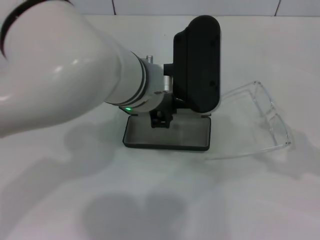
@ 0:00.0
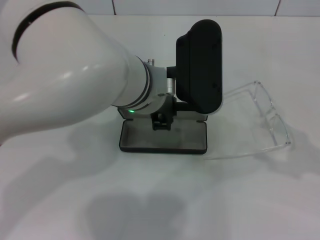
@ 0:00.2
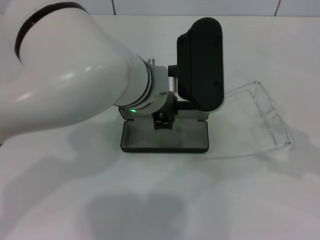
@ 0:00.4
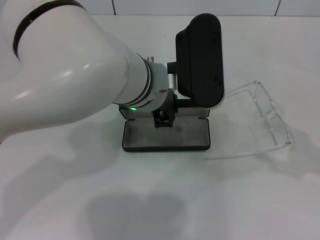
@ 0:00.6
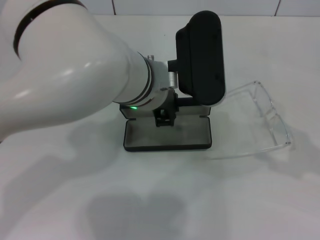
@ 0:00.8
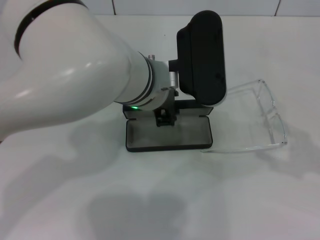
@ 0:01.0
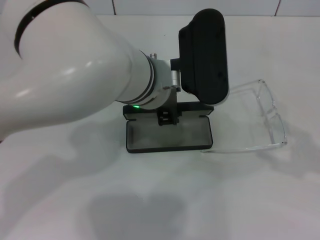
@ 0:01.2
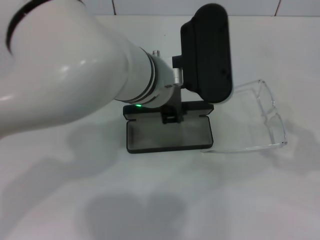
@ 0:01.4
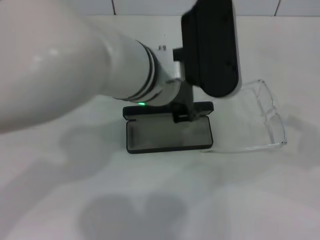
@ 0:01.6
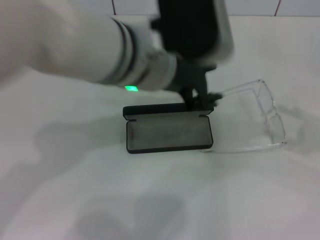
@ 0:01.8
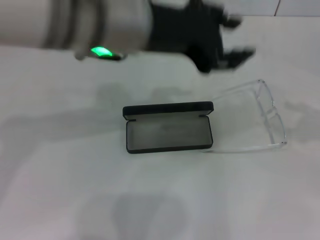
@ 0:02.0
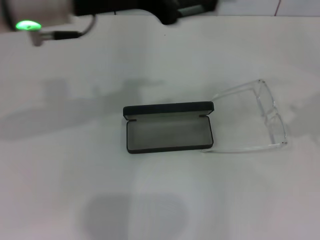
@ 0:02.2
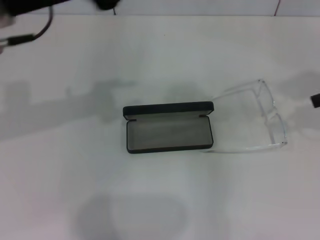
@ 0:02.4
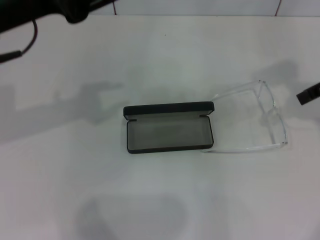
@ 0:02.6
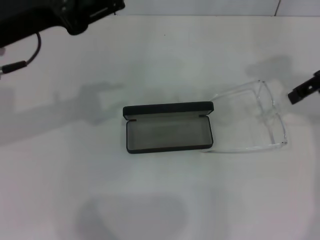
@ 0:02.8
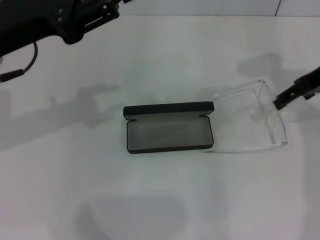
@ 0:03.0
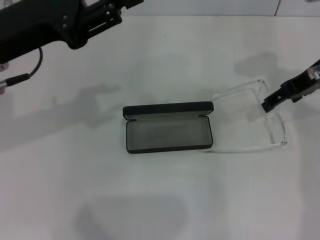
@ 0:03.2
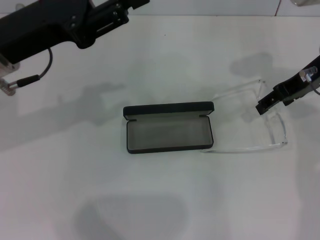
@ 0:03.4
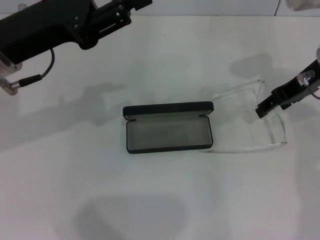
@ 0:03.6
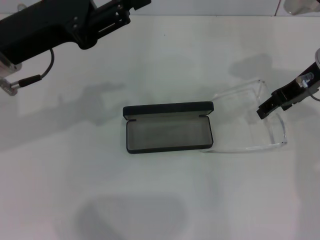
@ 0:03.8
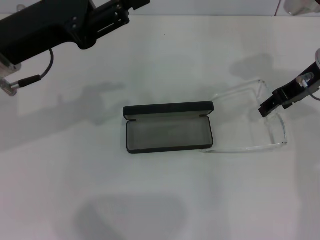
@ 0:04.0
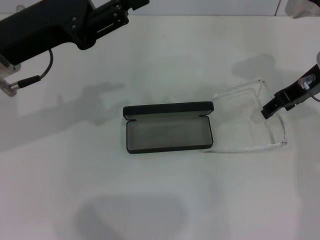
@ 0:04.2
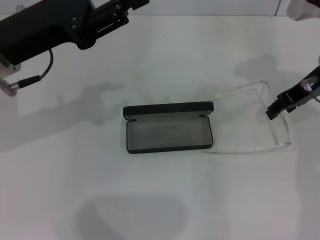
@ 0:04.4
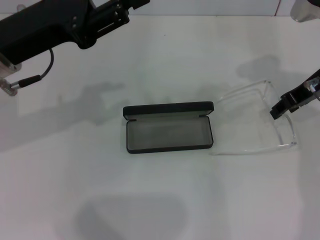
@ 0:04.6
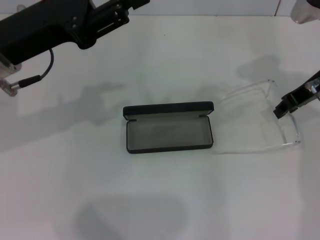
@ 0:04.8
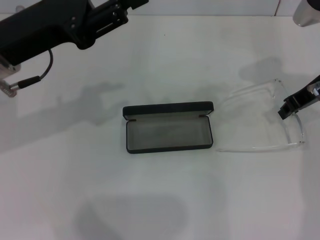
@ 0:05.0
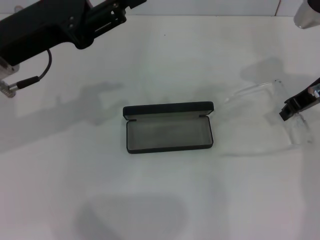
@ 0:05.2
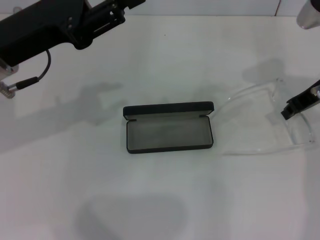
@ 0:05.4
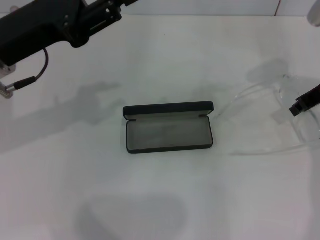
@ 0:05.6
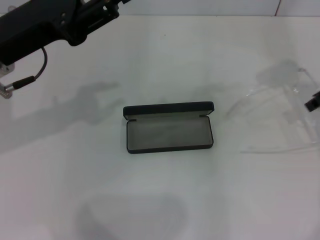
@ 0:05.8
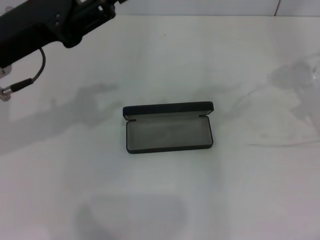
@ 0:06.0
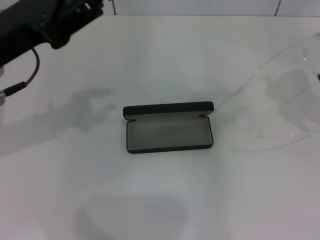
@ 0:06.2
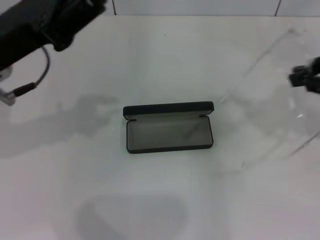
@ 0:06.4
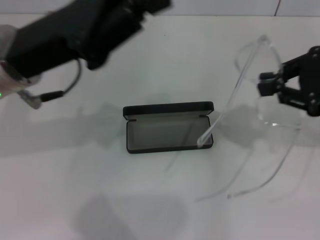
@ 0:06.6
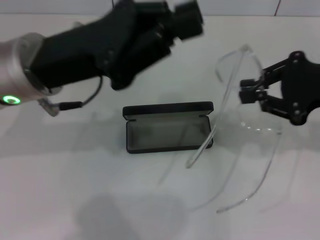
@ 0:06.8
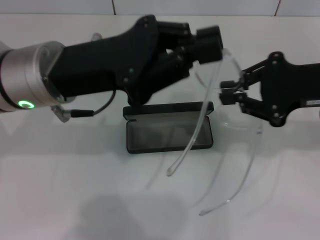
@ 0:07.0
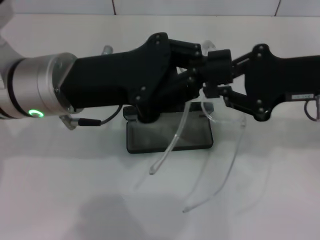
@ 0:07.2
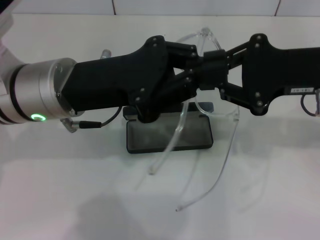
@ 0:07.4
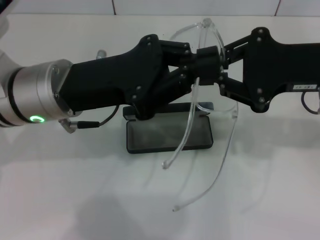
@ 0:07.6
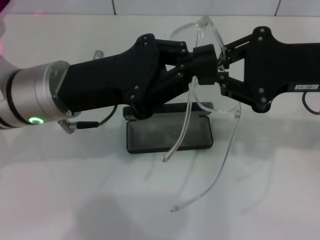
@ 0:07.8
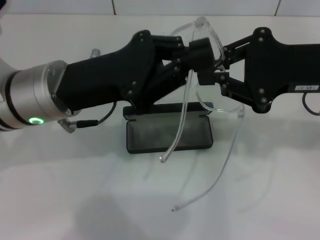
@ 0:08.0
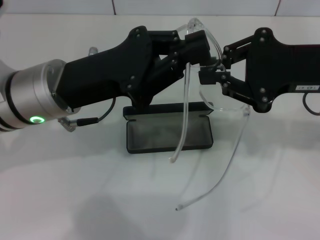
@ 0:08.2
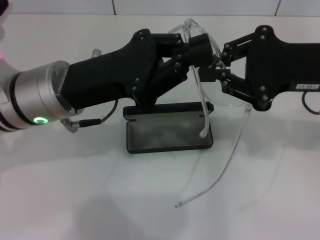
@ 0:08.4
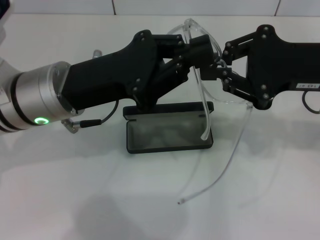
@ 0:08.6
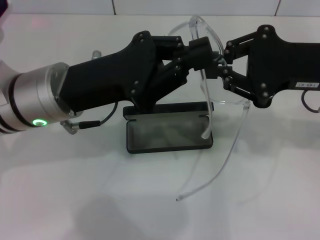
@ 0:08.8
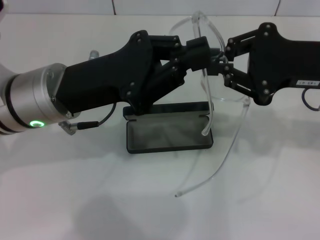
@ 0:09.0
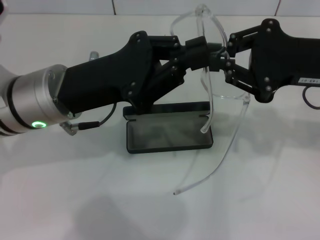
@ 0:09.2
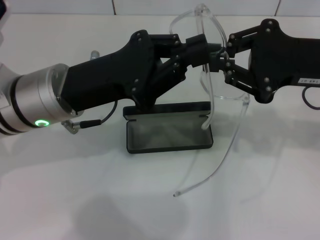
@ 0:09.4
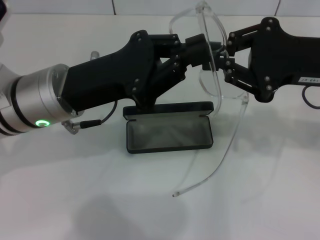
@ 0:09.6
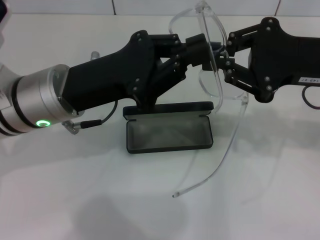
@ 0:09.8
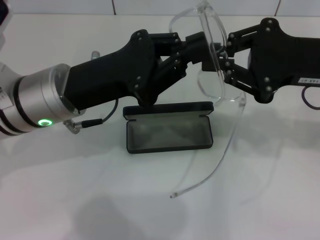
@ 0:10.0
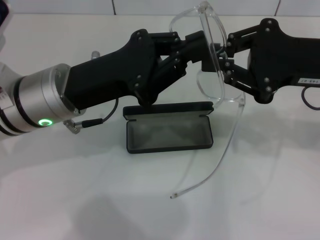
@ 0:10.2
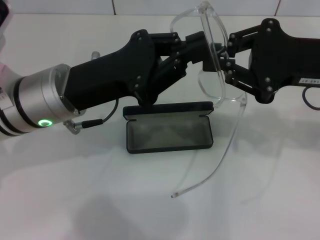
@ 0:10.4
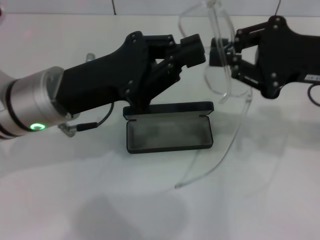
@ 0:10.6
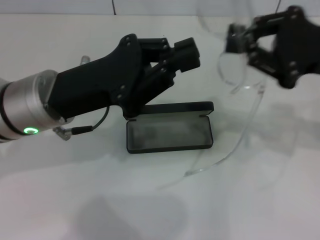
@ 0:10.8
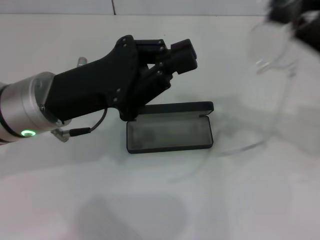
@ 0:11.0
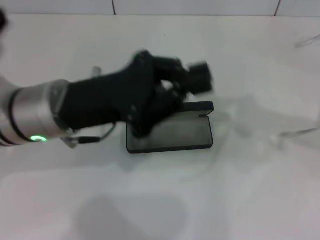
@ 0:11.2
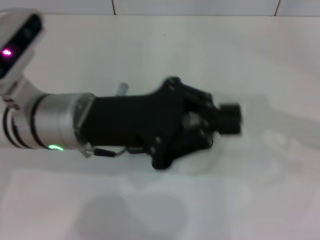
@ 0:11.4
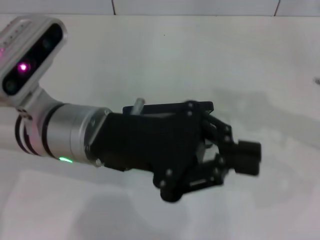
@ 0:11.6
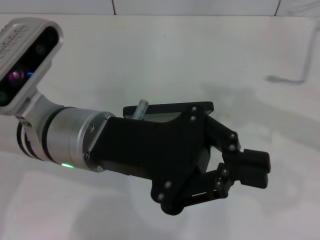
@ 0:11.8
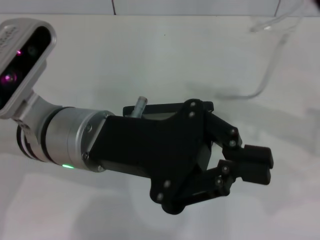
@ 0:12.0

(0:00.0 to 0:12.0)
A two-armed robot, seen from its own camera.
Step, 0:00.0 - 0:01.2: Place the glasses case in the center of the table with your left hand.
Step, 0:01.4 - 0:05.2: Grab the eyeglass frame with your right hand.
0:00.0 - 0:01.6: The left gripper opens.
0:01.6 - 0:03.0: The left gripper goes approximately 20 cm to the left, while the right gripper heads forward and to the left, covering roughly 25 cm.
0:03.0 - 0:04.4: The right gripper shifts by approximately 5 cm.
0:04.4 - 0:06.0: The right gripper moves to the right, about 5 cm, and closes.
0:06.0 - 0:07.6: The left gripper is displaced to the right by approximately 5 cm, and closes. Meanwhile the right gripper goes some 10 cm to the left and backward.
0:07.6 - 0:10.4: The grippers stay close to where they were, moving slightly.
0:10.4 - 0:12.0: The left gripper shifts by about 5 cm.

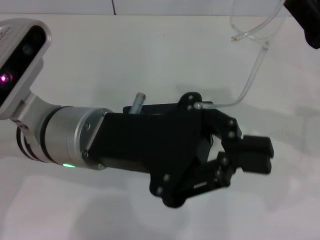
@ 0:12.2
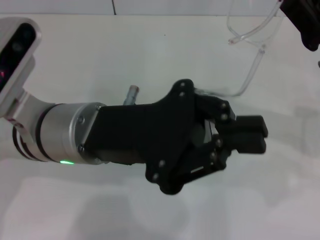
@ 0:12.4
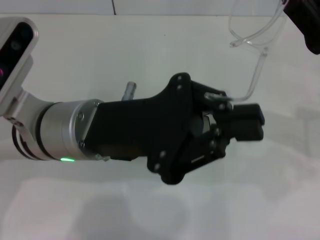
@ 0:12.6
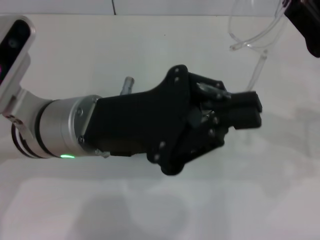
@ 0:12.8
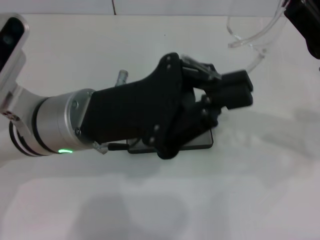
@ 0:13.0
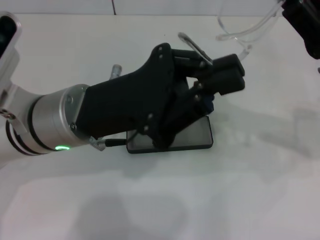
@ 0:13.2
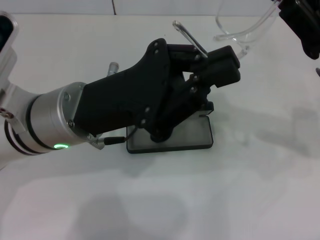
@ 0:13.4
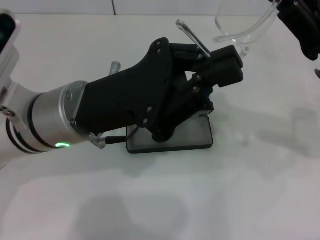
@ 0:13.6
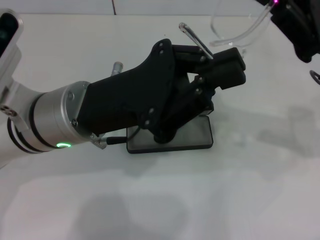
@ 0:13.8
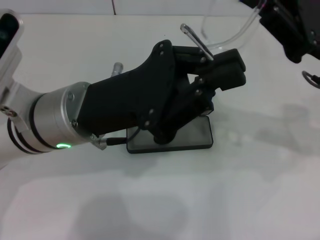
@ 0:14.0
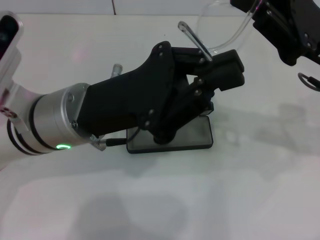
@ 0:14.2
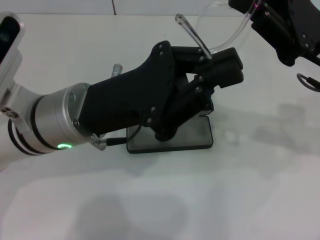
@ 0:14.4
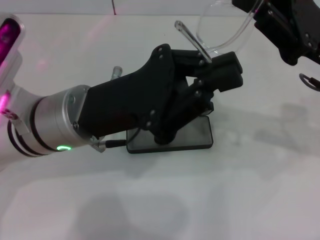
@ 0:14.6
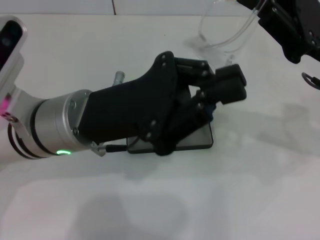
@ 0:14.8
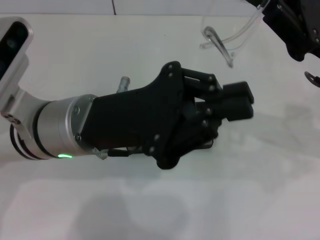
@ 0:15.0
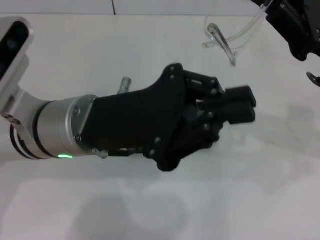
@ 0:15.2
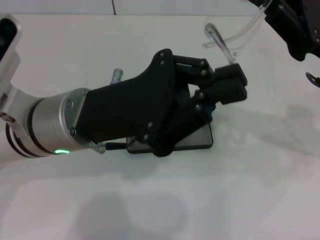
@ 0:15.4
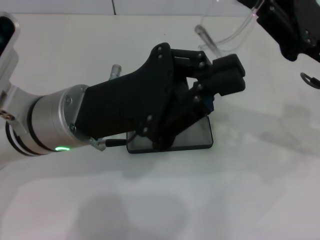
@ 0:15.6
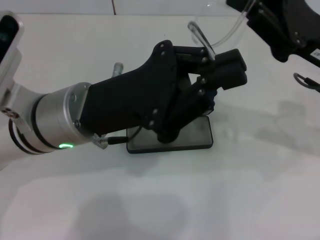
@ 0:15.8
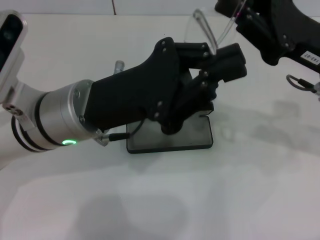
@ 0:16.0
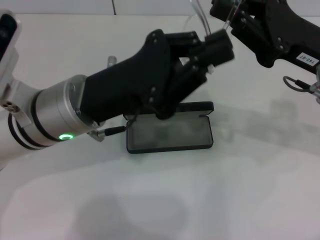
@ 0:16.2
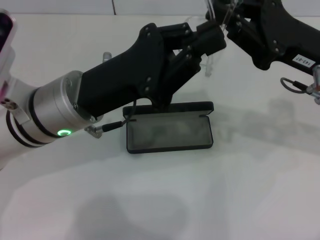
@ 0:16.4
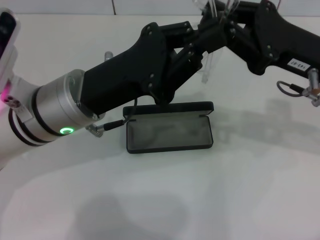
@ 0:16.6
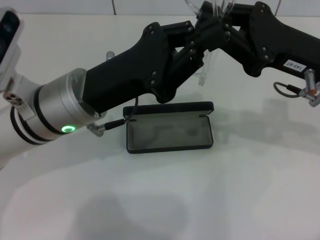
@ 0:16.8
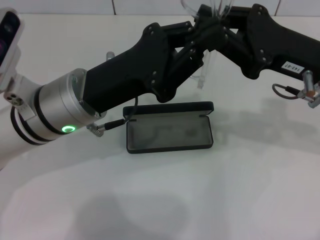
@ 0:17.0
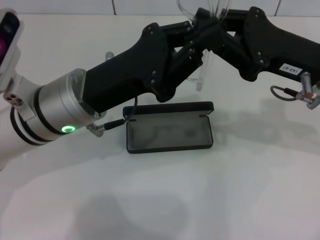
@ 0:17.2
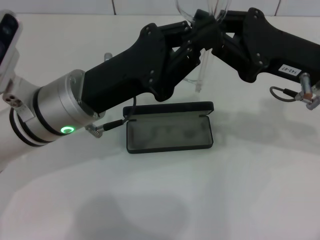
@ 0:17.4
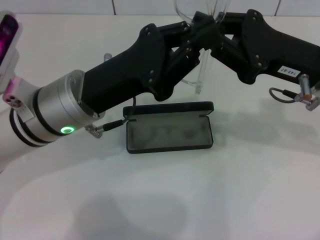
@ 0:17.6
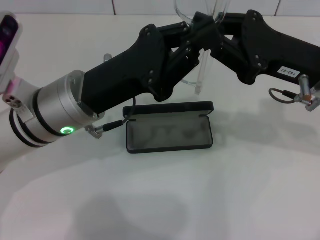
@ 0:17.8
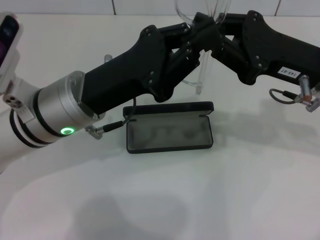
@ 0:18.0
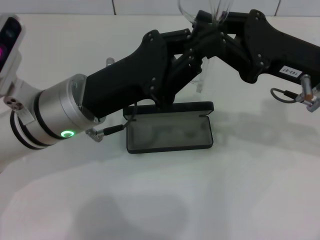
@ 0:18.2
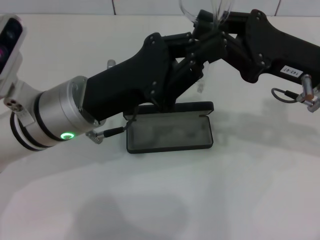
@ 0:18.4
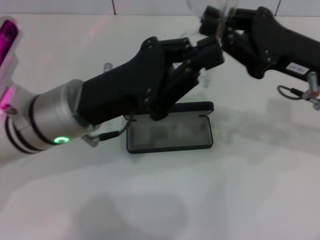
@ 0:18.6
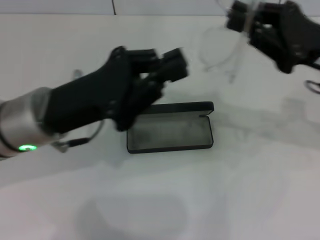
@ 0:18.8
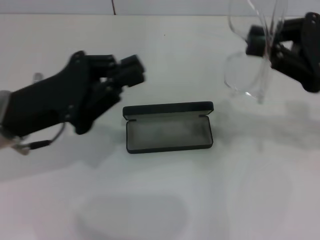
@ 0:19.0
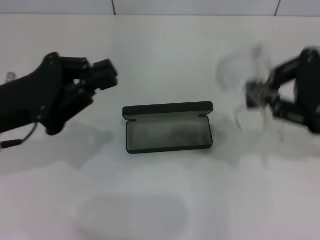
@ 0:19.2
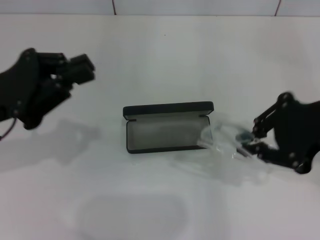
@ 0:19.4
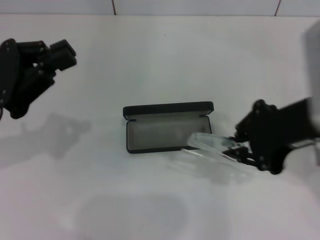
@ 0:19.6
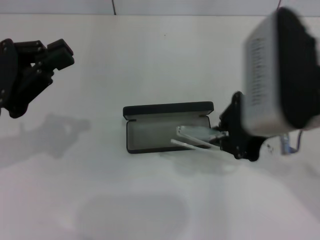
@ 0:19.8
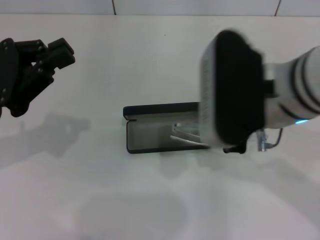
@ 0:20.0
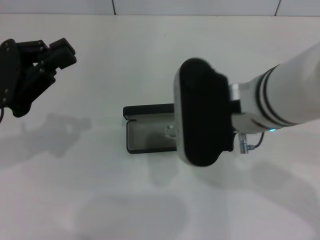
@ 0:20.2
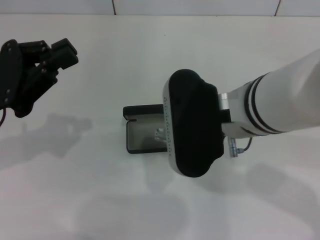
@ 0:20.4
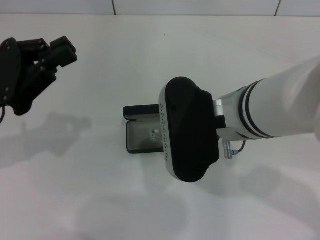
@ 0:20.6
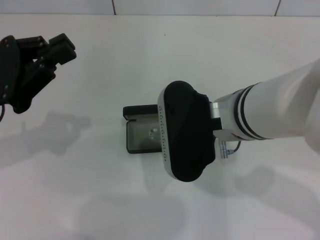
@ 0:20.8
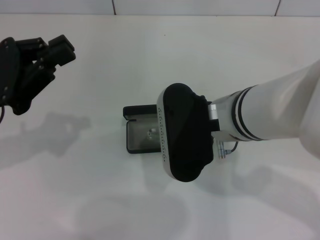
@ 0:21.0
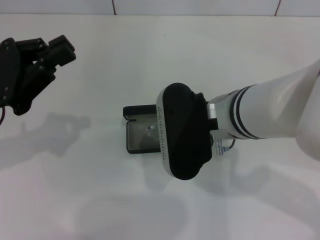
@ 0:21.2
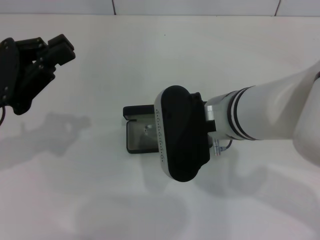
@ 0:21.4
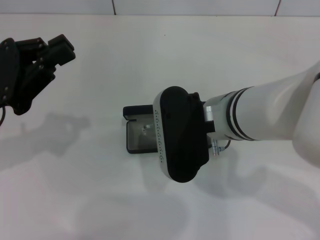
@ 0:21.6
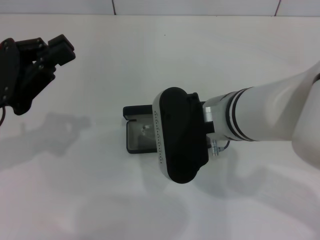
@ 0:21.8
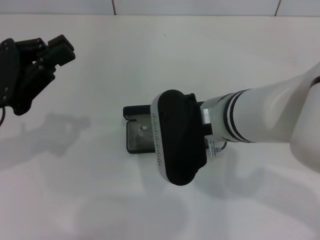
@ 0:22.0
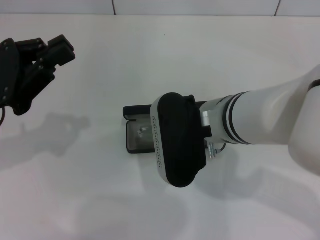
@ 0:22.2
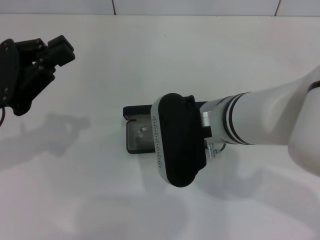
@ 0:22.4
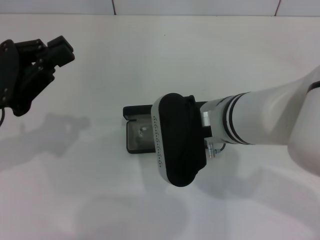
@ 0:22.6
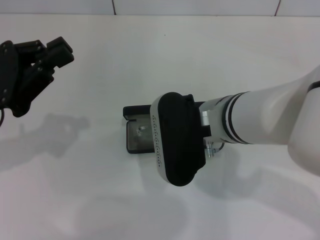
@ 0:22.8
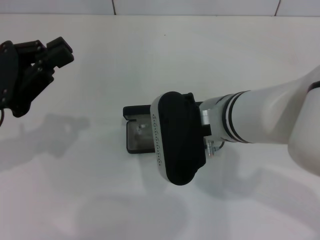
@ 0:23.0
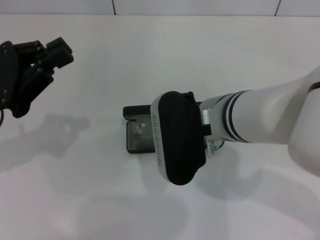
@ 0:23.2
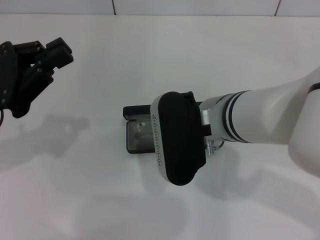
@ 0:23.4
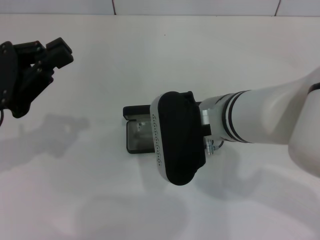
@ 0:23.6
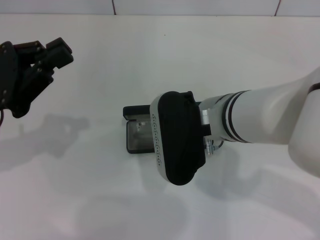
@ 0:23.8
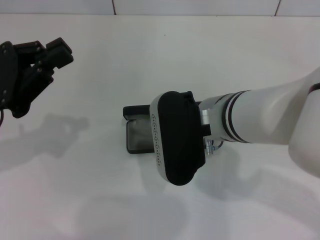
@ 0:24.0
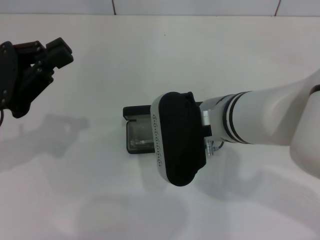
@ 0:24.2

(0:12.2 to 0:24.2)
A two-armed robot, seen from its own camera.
Step, 0:12.2 - 0:18.4: Fold the frame with your left hand.
0:16.6 - 0:18.2: Both grippers stay about where they are.
0:18.2 - 0:19.8: The left gripper moves to the left, approximately 15 cm; the right gripper travels upward, to the left and backward by some 10 cm.
0:19.8 - 0:21.2: The right gripper shifts some 10 cm to the left and downward.
0:21.2 - 0:22.6: The grippers make only small movements.
0:22.6 - 0:24.2: Both grippers stay about where they are.
